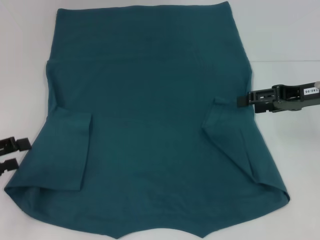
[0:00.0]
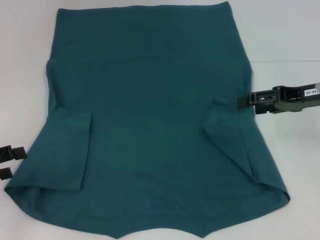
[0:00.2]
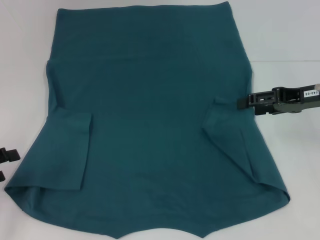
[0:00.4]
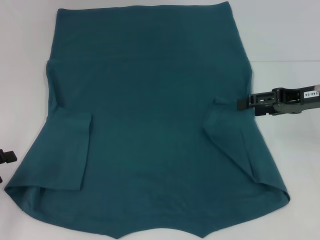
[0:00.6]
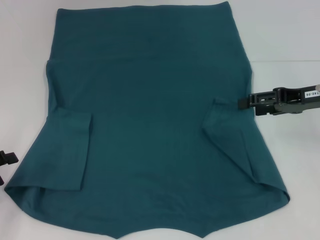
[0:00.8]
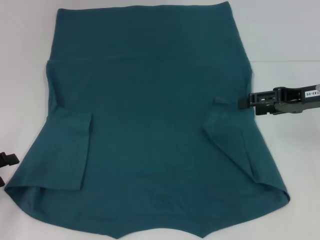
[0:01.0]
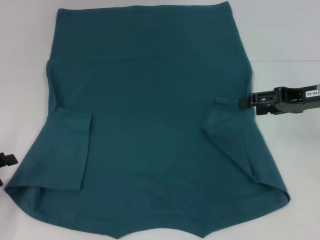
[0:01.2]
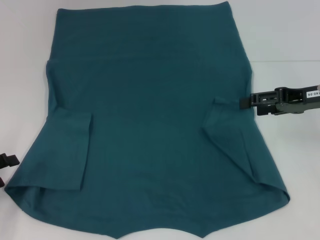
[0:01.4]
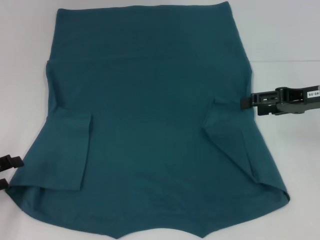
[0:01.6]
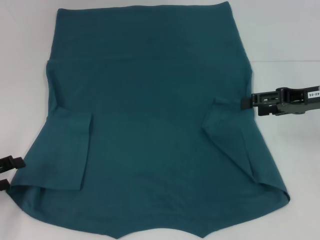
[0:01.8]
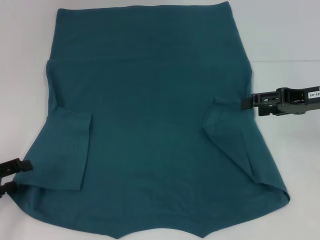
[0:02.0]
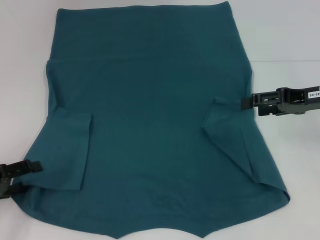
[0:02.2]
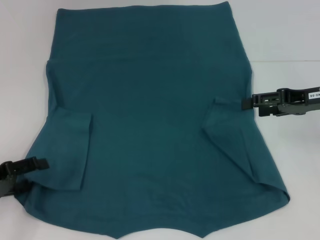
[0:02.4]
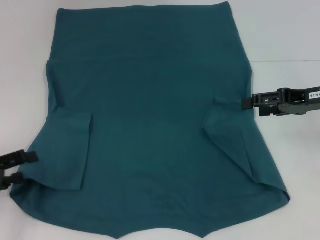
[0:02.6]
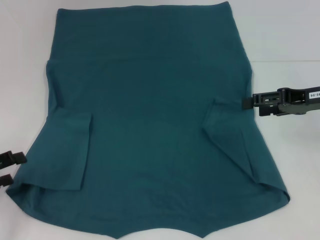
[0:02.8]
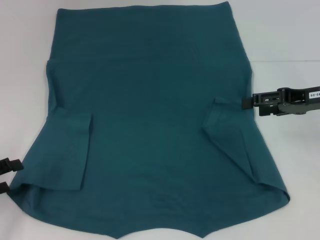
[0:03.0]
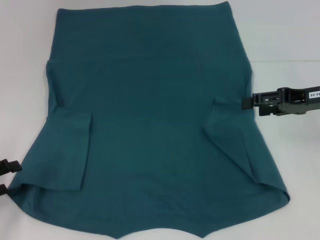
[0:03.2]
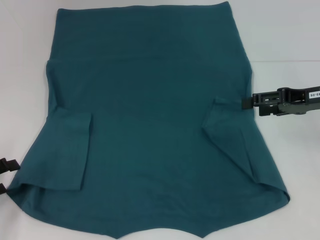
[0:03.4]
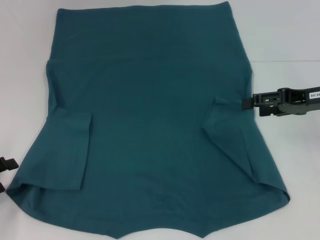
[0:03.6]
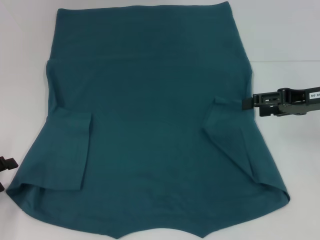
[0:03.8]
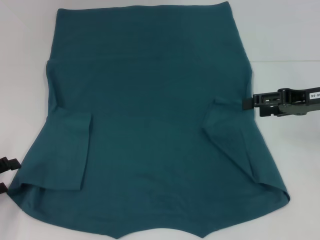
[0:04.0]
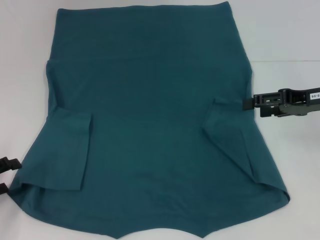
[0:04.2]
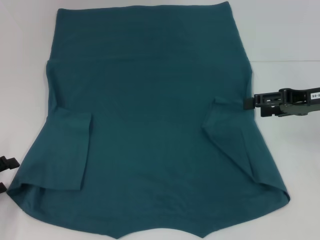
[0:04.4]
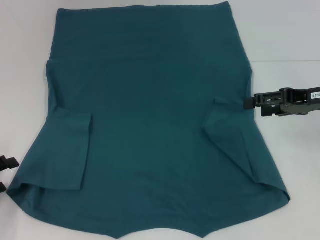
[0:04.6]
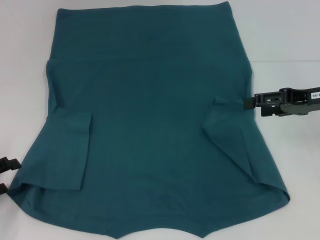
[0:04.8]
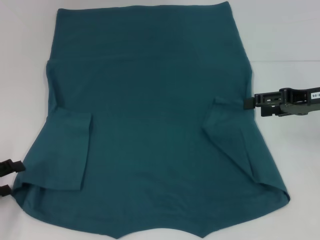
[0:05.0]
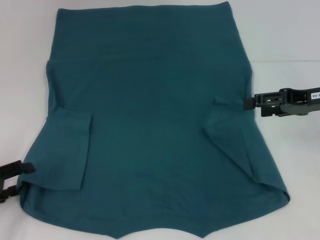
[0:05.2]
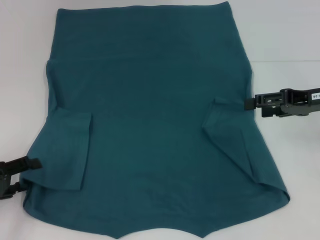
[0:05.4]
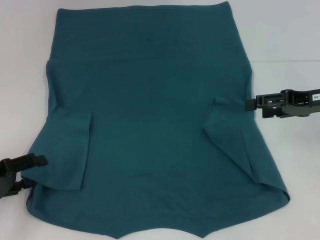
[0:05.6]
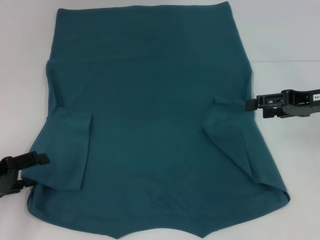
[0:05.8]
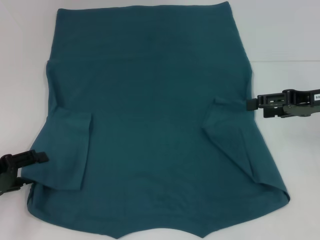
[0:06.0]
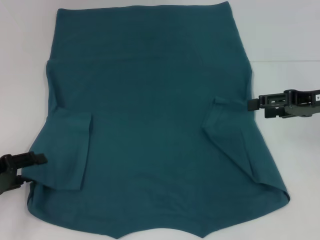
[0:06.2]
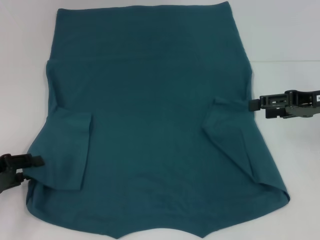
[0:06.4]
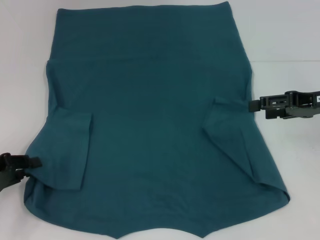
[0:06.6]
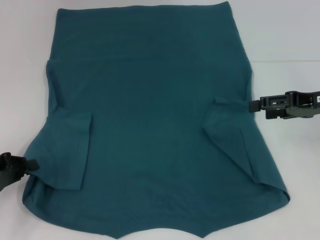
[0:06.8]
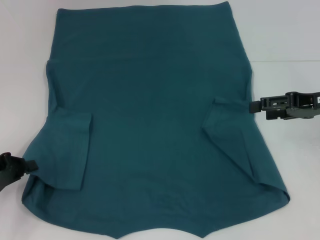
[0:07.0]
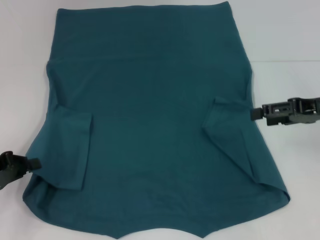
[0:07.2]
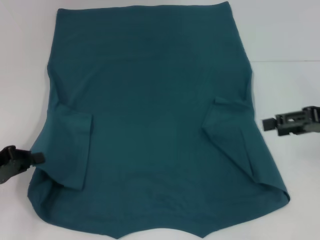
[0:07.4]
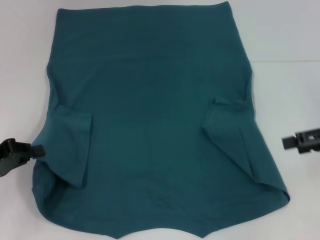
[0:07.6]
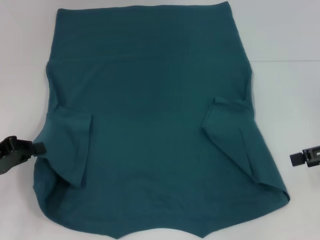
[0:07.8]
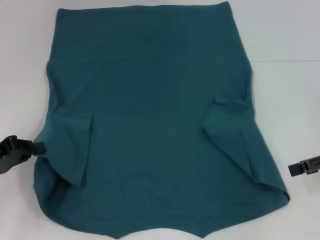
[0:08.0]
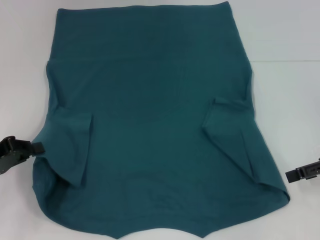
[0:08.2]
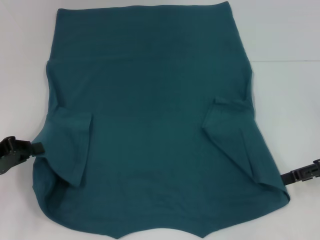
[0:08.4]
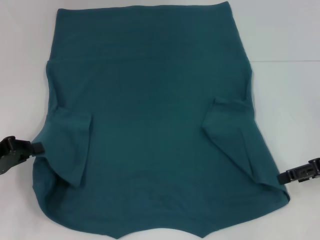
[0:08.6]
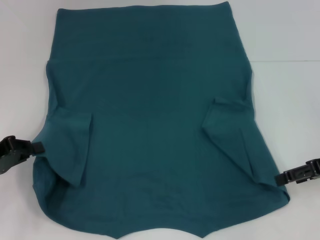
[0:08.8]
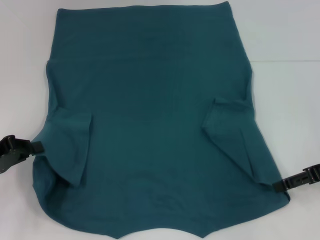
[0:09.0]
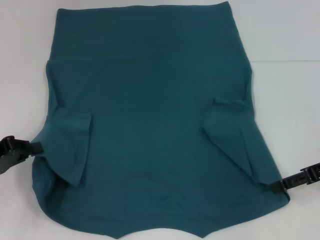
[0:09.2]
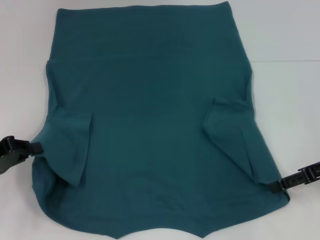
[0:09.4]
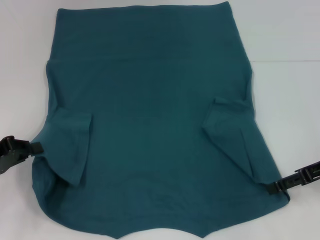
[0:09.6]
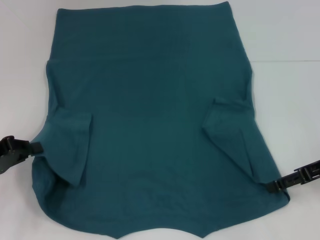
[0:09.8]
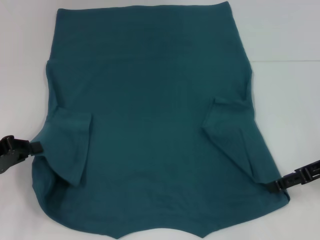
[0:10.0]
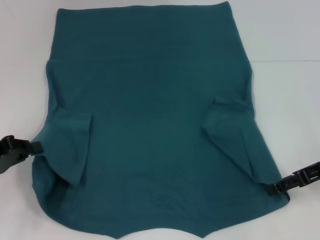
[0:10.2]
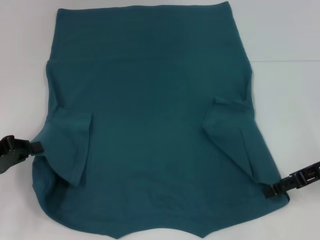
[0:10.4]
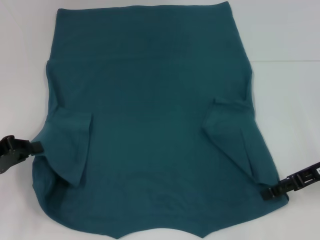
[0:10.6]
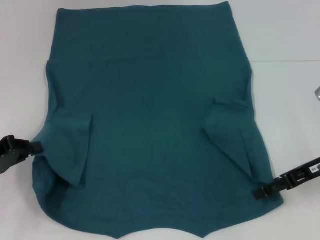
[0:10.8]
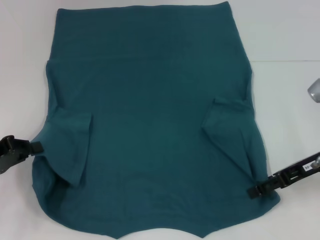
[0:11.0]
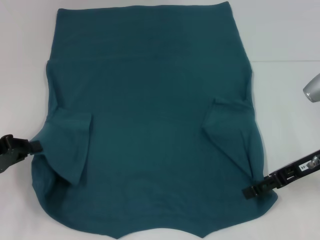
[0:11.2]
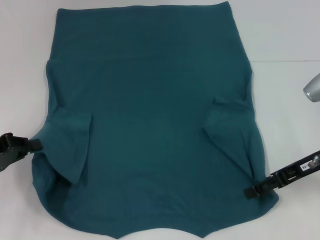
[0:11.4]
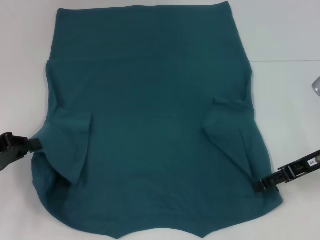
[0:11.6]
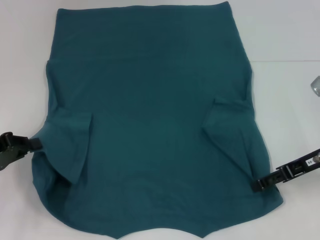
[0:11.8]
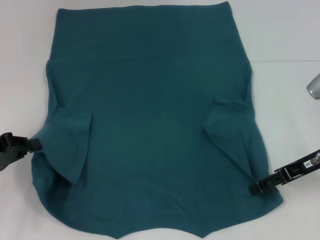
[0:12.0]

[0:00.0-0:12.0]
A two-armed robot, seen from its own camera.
Step, 0:00.0 to 0:07.0: Grab the bottom left corner with your left hand.
0:00.0 to 0:06.0: The grippers make only small movements.
0:06.0 to 0:07.6: The right gripper moves some 5 cm. Meanwhile the left gripper closes up.
0:07.6 to 0:09.0: The right gripper shifts by approximately 5 cm.
0:10.4 to 0:12.0: The grippers stay close to where they were, moving slightly.

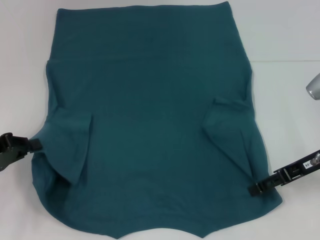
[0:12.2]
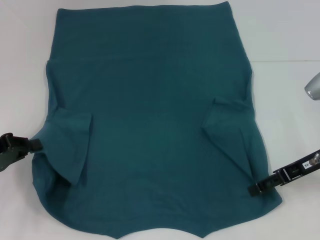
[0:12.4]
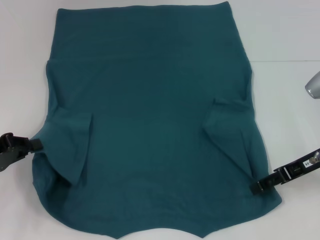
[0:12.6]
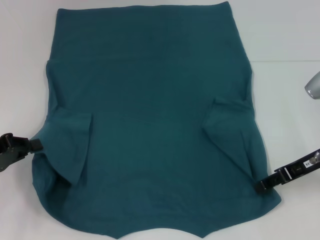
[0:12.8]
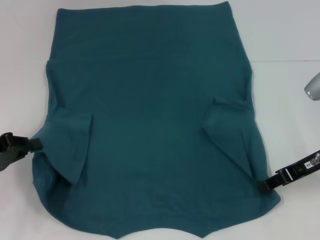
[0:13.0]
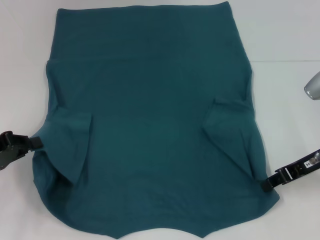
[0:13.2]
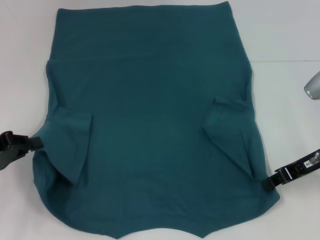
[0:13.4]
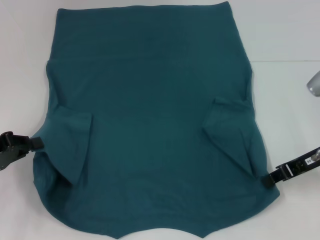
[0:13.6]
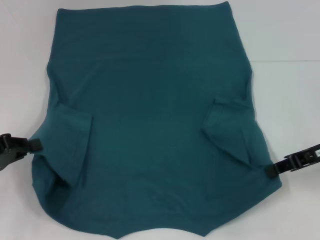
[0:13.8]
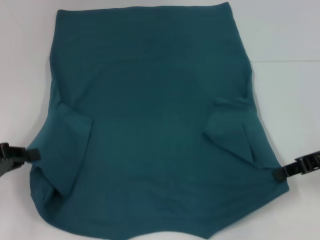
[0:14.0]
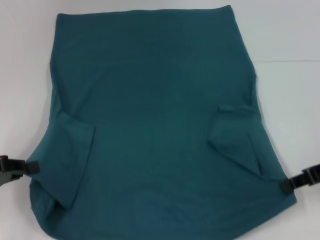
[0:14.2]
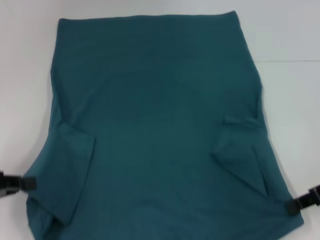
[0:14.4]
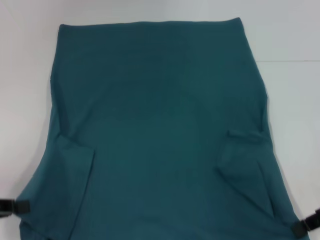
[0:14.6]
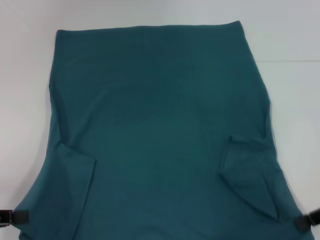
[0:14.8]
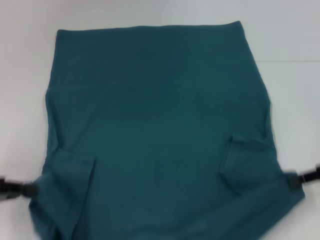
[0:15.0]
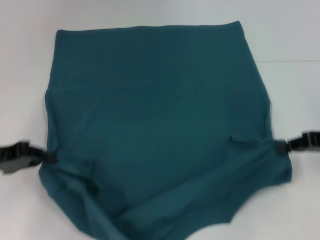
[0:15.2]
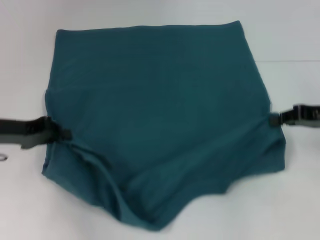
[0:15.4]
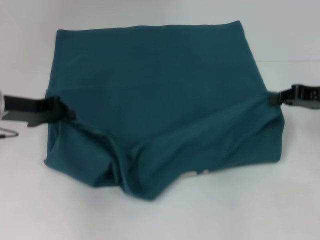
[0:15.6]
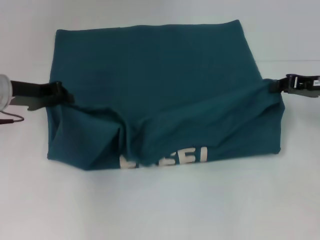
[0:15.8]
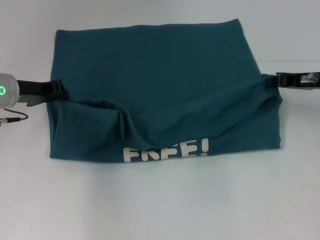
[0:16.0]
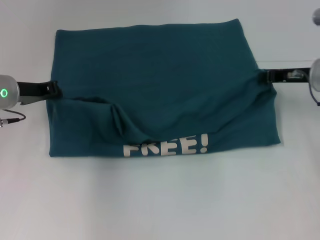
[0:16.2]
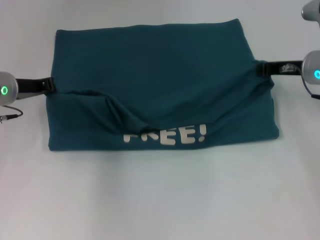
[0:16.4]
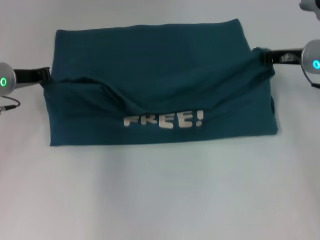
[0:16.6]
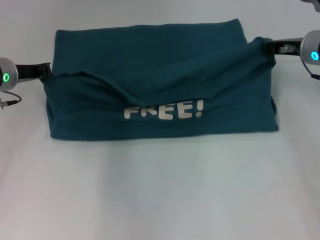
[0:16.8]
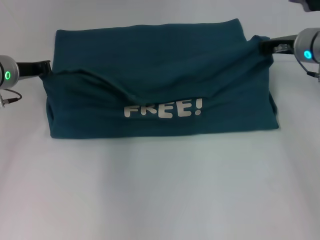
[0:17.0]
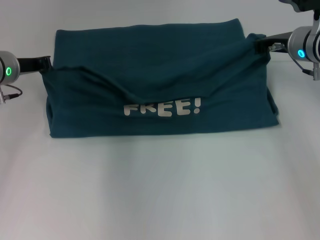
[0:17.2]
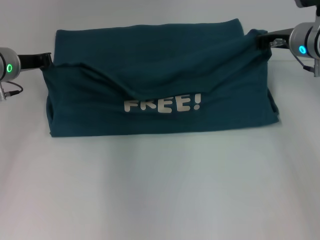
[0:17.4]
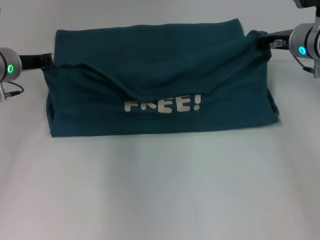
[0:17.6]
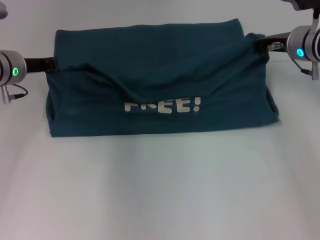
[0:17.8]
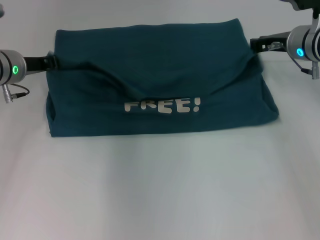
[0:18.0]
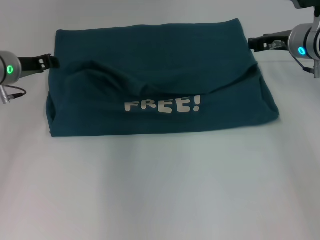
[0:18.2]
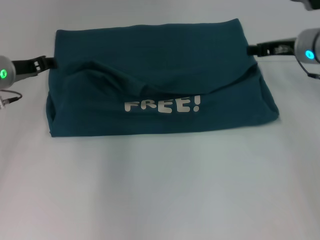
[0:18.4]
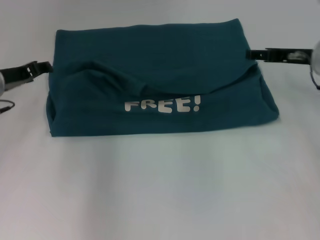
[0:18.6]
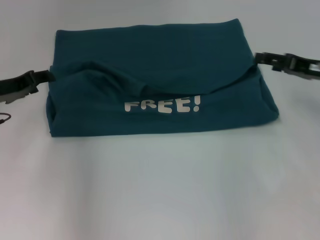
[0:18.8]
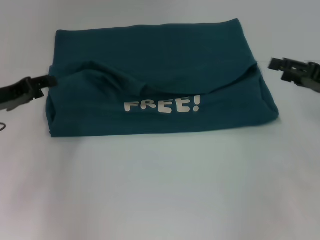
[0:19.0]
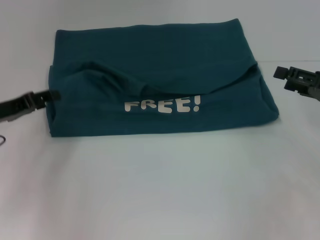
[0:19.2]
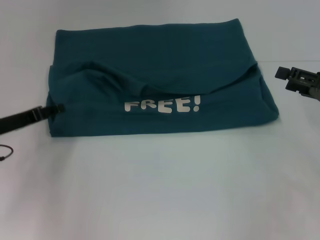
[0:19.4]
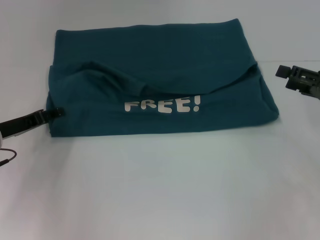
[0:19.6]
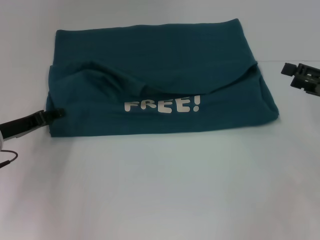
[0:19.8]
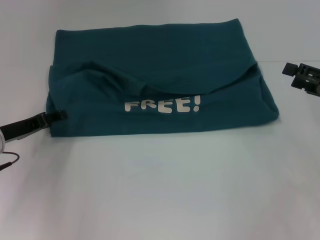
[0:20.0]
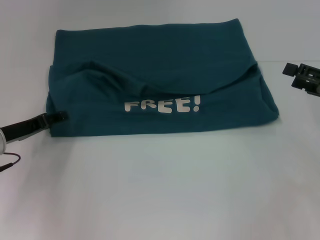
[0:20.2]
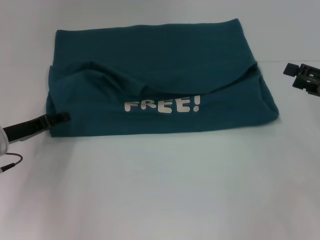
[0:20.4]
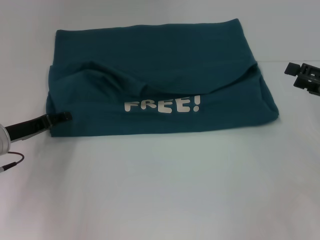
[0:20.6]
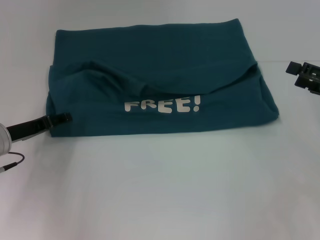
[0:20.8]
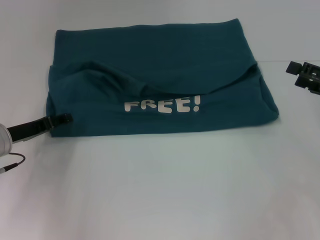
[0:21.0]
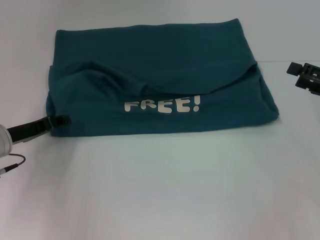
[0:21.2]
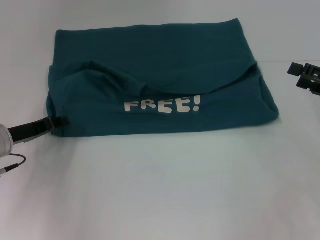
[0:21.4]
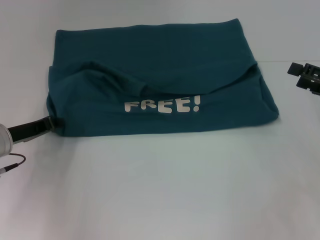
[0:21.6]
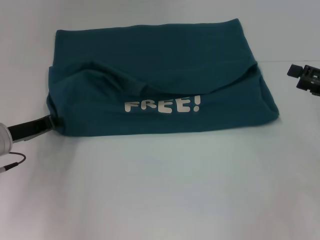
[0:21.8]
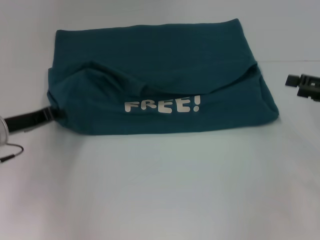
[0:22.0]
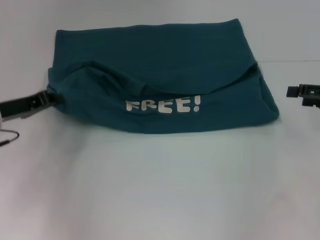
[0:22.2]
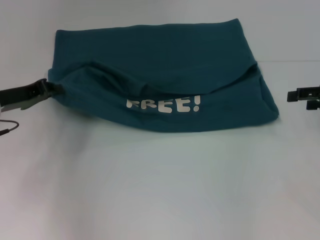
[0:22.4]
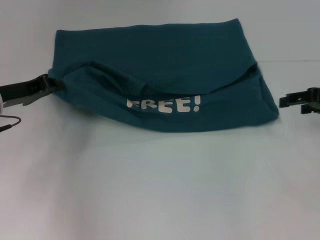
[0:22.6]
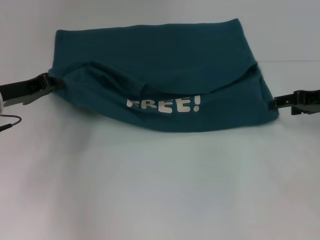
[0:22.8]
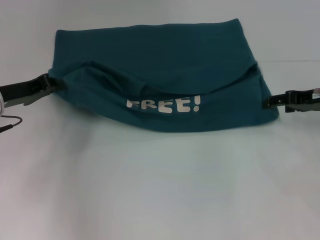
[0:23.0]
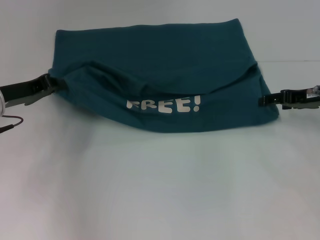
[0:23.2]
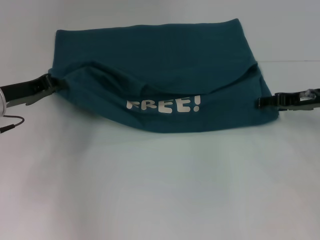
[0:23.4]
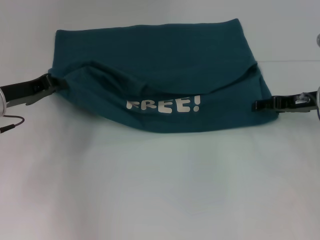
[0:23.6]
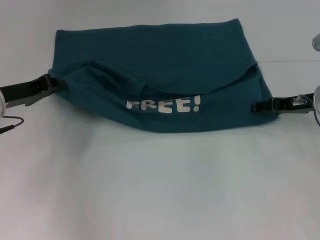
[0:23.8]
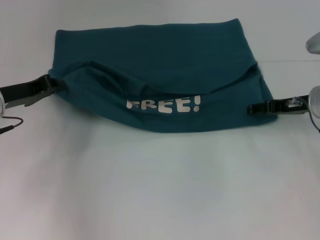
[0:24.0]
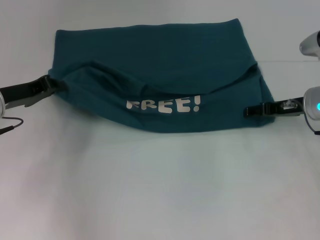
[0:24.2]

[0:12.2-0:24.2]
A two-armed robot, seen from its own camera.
Step, 0:13.4 to 0:18.2: Fold the clothes to the left.
Step, 0:13.4 to 0:18.2: Fold the clothes to the right.
0:12.2 to 0:13.8: The right gripper closes up.
0:13.8 to 0:15.2: The left gripper moves approximately 5 cm backward and comes back.
0:15.2 to 0:16.6: The left gripper shifts roughly 15 cm forward and to the right; the right gripper heads forward and to the left, covering some 15 cm.
0:16.6 to 0:18.2: The left gripper opens.
0:18.2 to 0:19.8: The left gripper travels backward and downward by roughly 10 cm. Meanwhile the right gripper shifts about 20 cm backward and to the right, and opens up.
0:19.8 to 0:21.2: Neither gripper changes place.
0:21.2 to 0:22.6: The left gripper travels upward by approximately 5 cm, and closes its fingers. Meanwhile the right gripper moves forward, about 5 cm.
0:22.6 to 0:24.2: The right gripper travels to the left and downward by about 10 cm.
